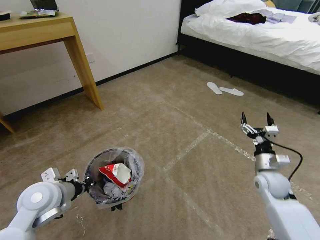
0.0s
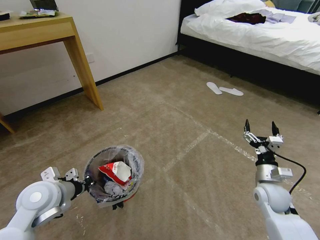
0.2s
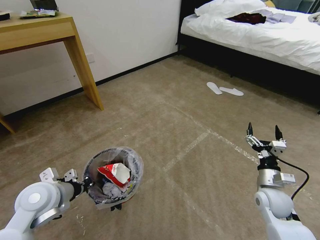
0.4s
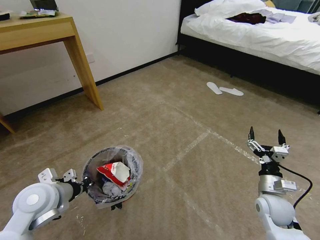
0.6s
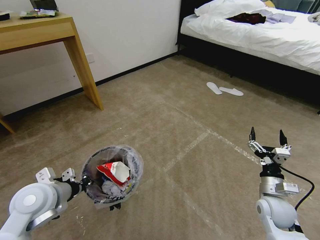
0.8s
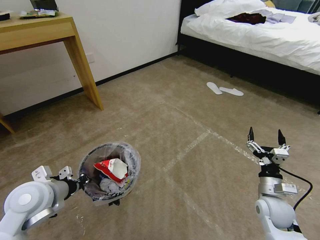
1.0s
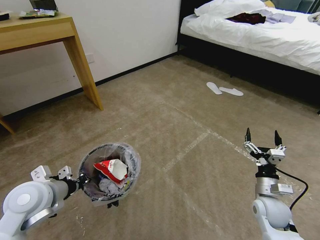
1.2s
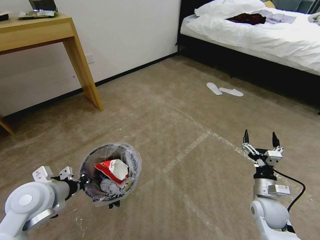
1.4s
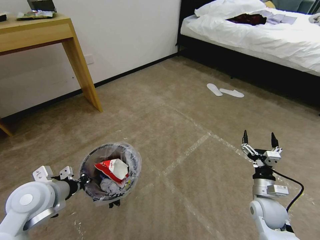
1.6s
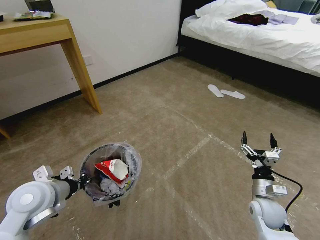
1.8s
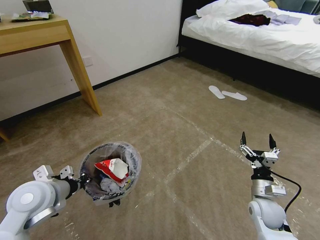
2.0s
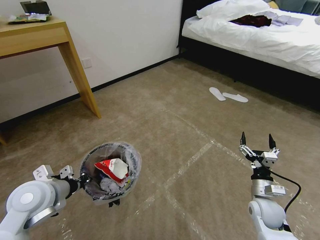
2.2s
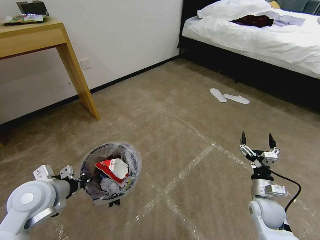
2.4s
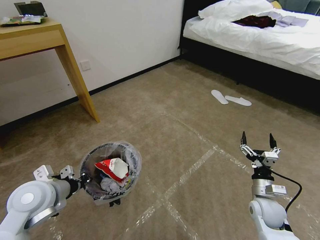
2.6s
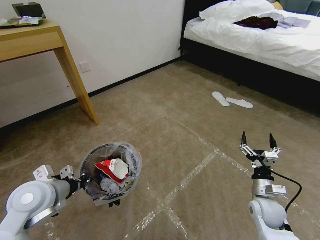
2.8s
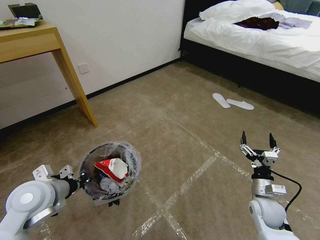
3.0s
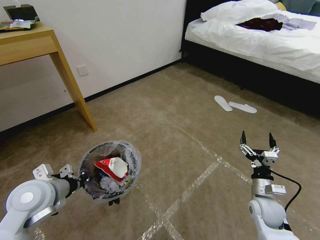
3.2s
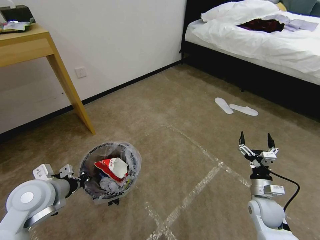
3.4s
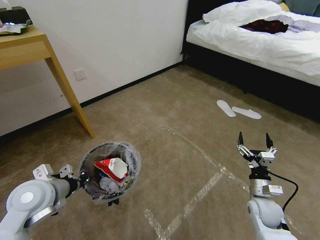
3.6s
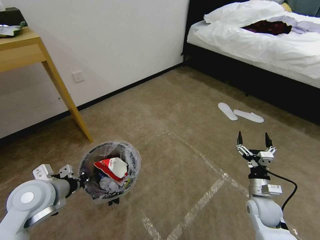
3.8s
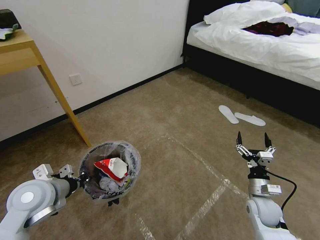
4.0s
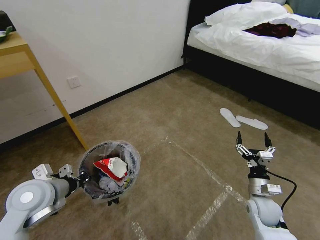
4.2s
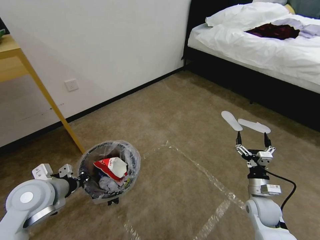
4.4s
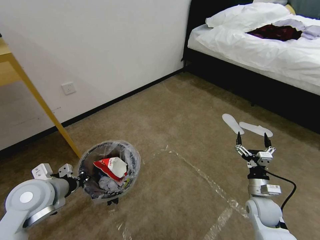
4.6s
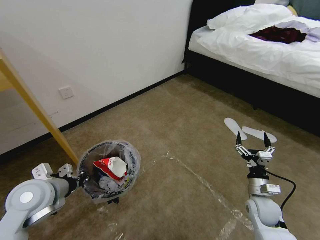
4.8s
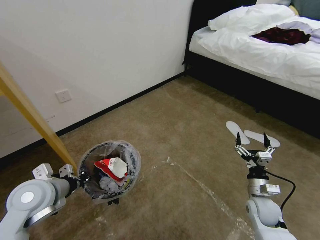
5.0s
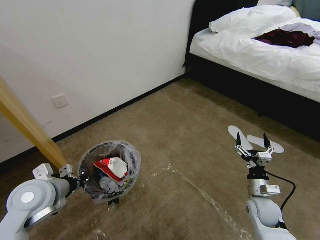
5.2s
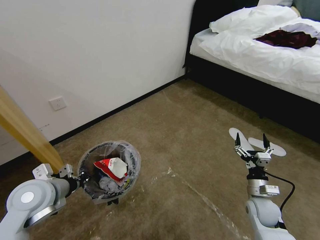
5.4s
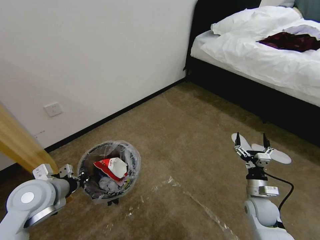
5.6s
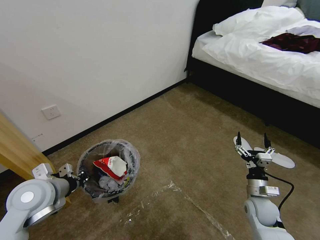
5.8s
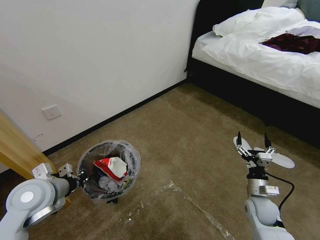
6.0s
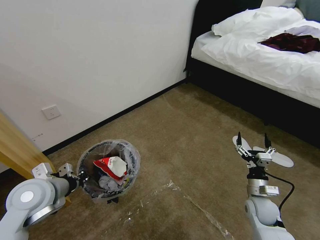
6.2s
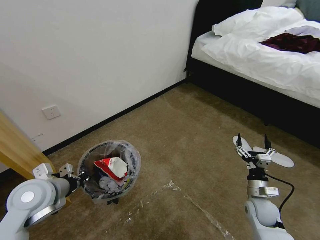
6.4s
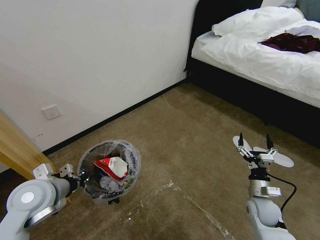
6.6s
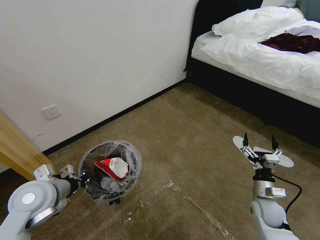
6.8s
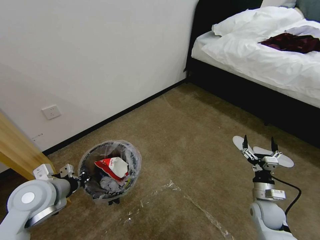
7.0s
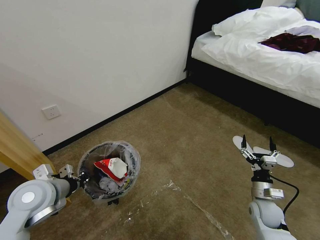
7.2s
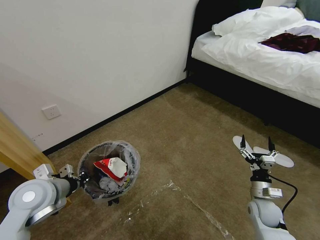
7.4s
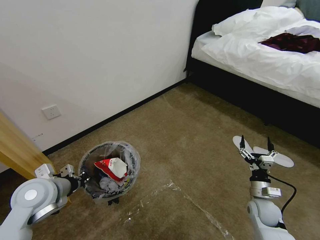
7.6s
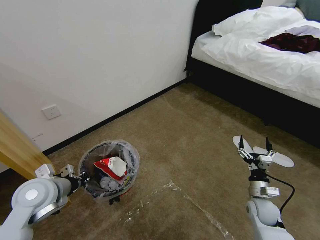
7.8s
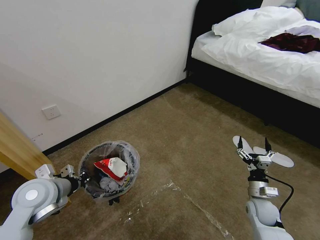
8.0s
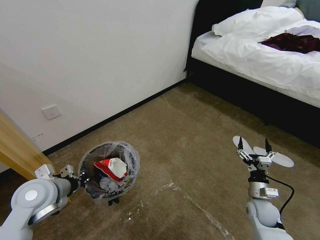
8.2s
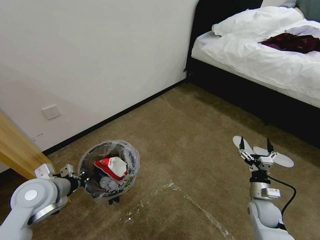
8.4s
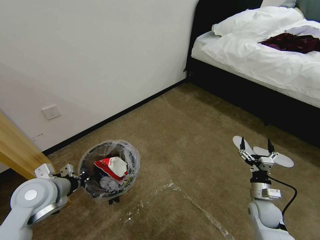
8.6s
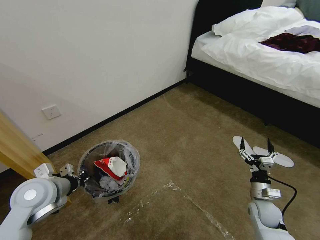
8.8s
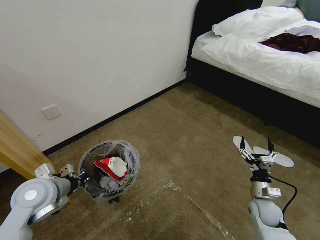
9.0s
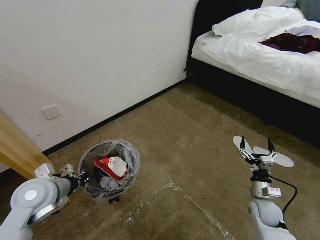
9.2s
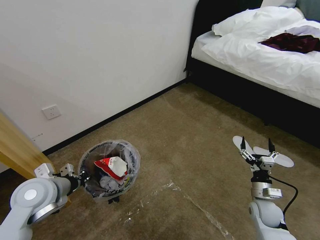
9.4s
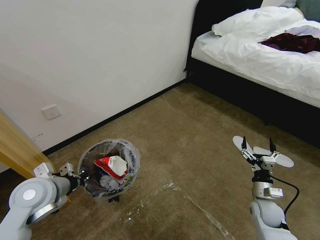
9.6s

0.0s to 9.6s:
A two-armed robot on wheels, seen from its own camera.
Task of the whole recording: Pick up the trash bin and place the garbage on the floor into it.
0.0s to 1.6s: The right gripper goes roughly 5 cm backward.
6.4s to 8.0s: The grippers stay close to where they were, moving slightly.
8.0s to 9.6s: The two grippers keep their place.
